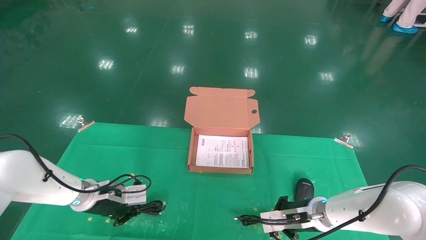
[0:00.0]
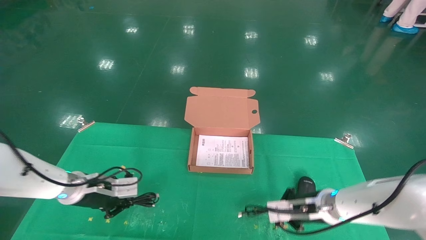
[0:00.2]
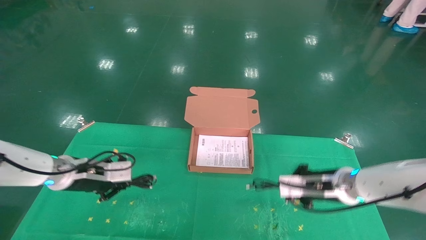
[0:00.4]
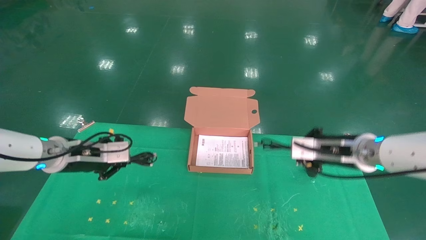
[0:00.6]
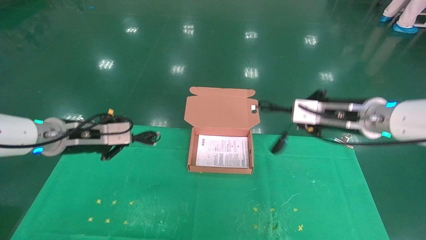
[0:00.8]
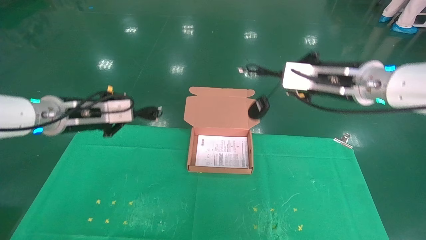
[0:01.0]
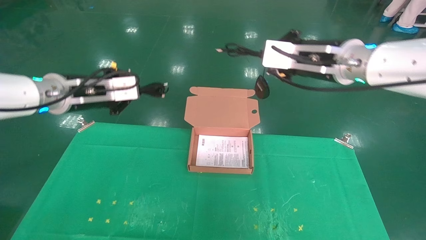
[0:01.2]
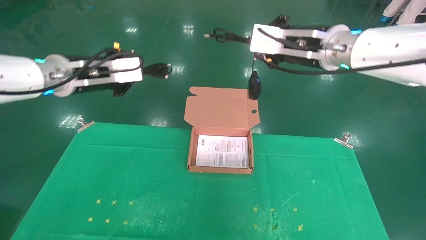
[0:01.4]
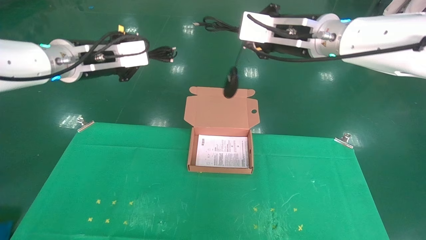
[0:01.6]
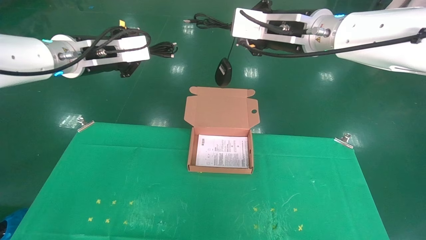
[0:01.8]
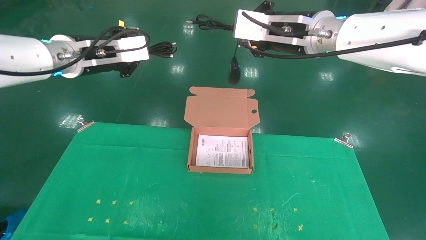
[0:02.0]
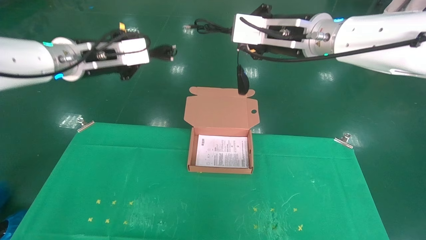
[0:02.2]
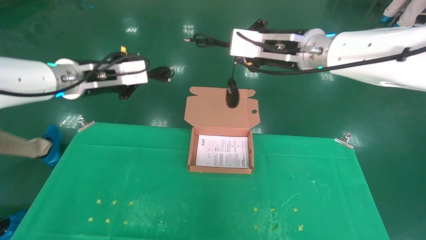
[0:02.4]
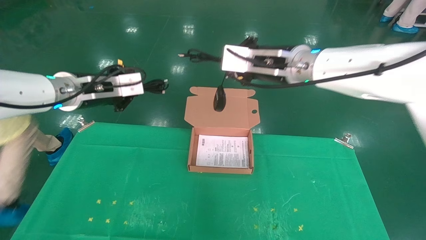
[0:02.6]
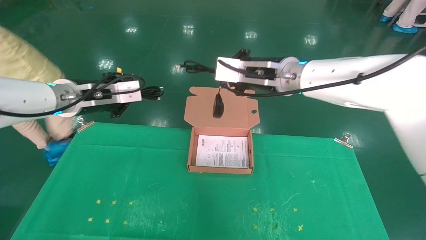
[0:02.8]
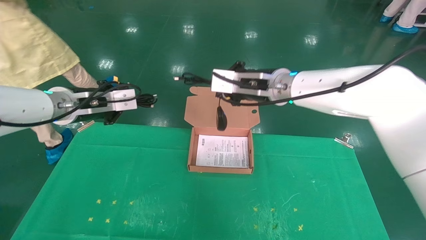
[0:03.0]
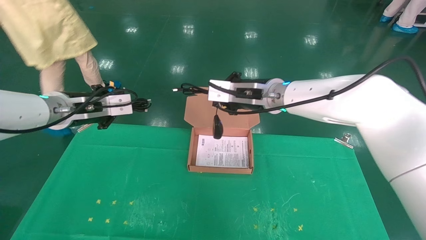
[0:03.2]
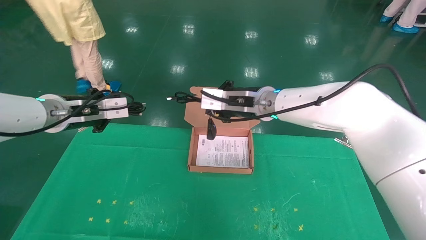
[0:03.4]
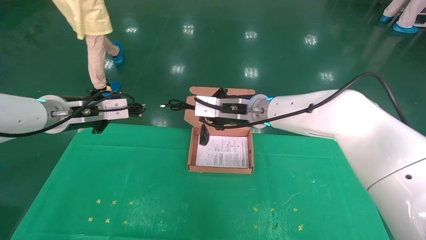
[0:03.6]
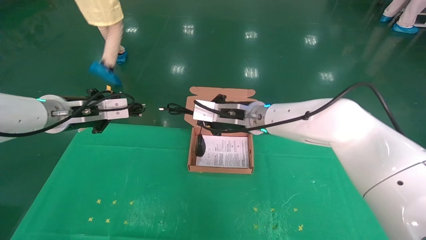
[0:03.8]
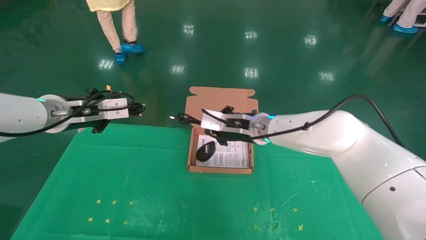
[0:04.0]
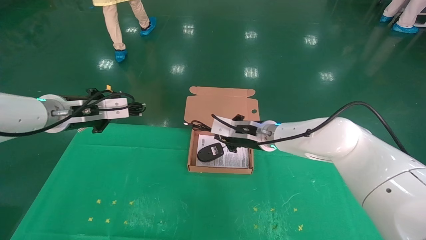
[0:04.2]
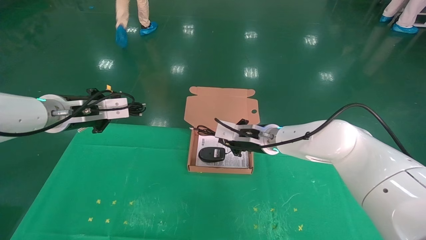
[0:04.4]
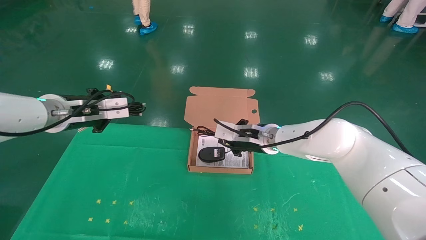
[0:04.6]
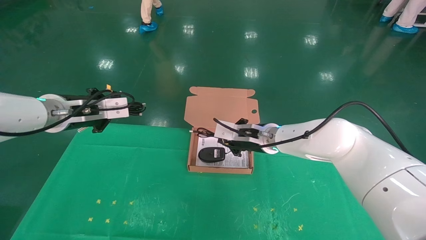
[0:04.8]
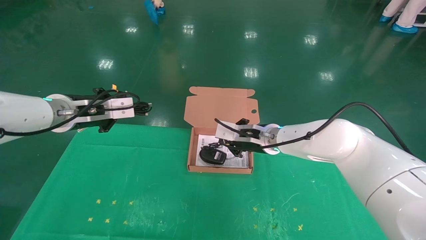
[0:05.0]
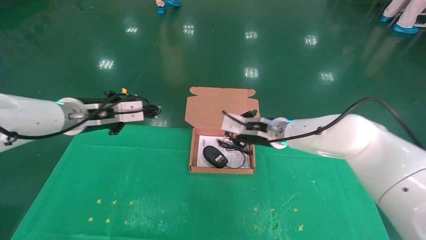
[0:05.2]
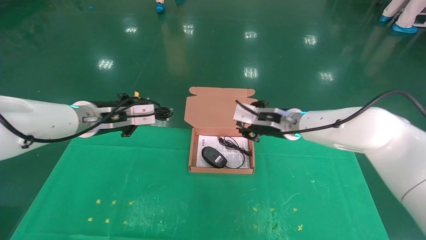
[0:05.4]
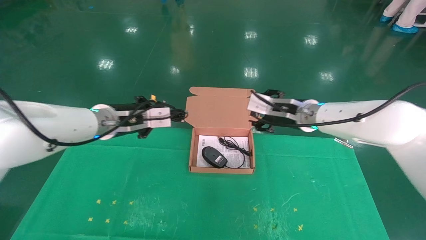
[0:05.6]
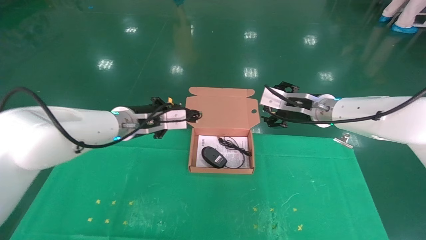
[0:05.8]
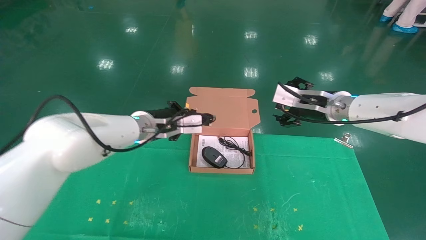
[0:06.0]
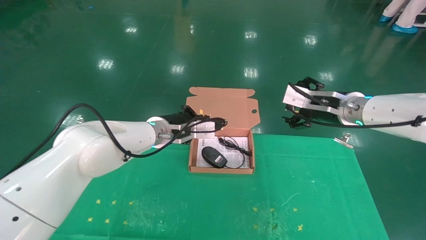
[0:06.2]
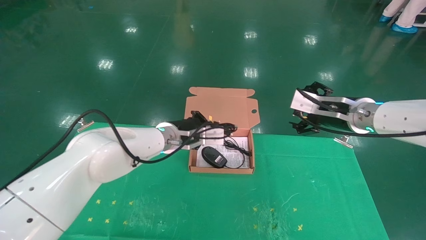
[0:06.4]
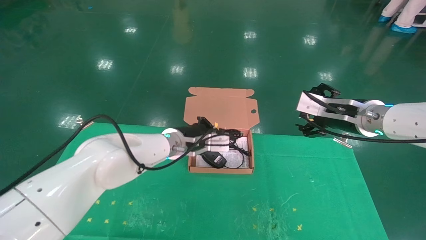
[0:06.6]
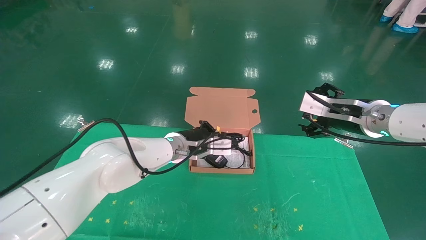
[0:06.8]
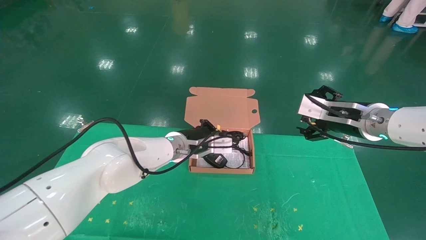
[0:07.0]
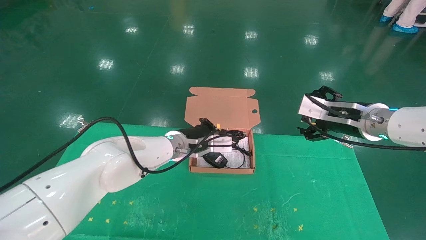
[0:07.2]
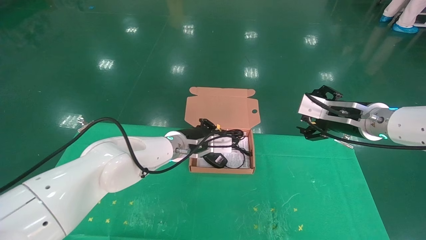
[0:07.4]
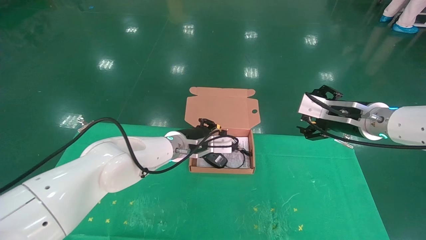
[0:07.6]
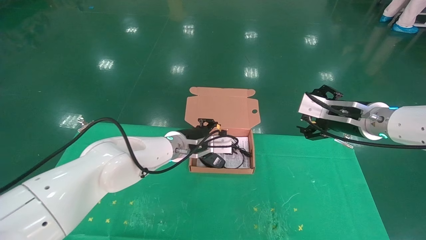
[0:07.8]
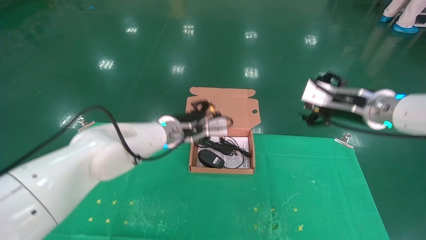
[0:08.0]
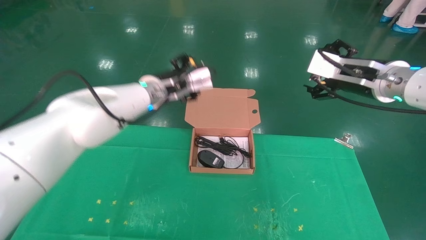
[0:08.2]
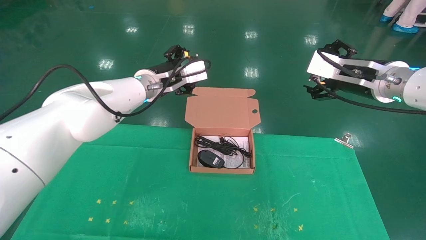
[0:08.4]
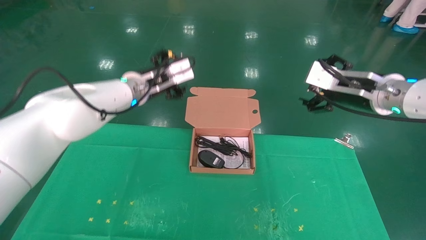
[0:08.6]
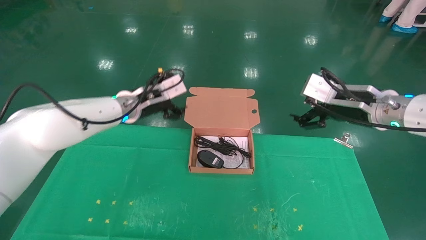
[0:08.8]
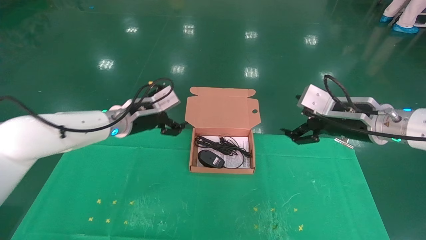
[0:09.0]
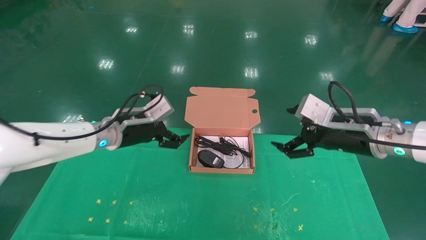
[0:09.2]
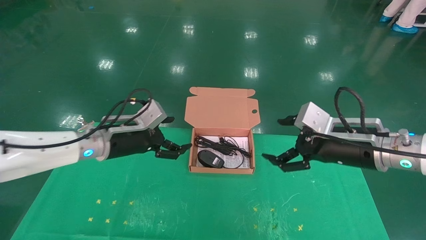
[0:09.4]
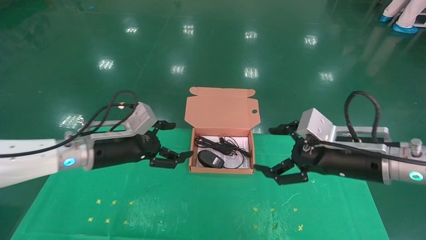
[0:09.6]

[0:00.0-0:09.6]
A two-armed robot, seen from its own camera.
Task of the whole recording: grasp data cable left put into box grasp mouse right put into box.
Step, 0:01.6 to 0:07.4: Place the mouse and power cord into the box.
0:00.0 to 0:01.6: The grippers both shift upward by some 35 cm.
0:01.6 to 0:03.2: The left gripper shifts some 10 cm downward. The right gripper shifts approximately 15 cm downward, to the left and forward.
0:03.2 to 0:04.8: The right gripper goes roughly 10 cm downward.
0:04.8 to 0:06.4: The right gripper heads to the right and upward, covering roughly 20 cm, and opens; the left gripper heads to the right and downward, covering approximately 20 cm.
0:06.4 to 0:08.0: The left gripper opens its fingers.
0:08.0 to 0:09.6: The left gripper is displaced to the left and backward by some 15 cm, and opens. The right gripper is displaced backward and downward by some 10 cm.
